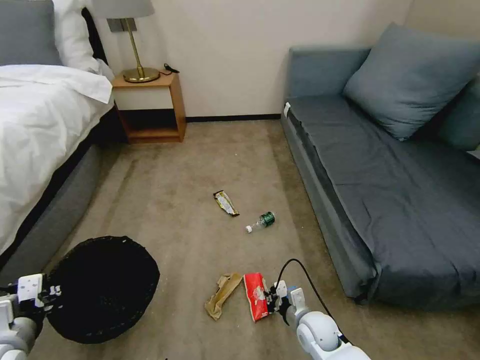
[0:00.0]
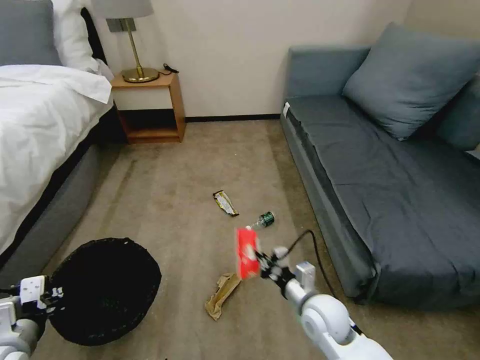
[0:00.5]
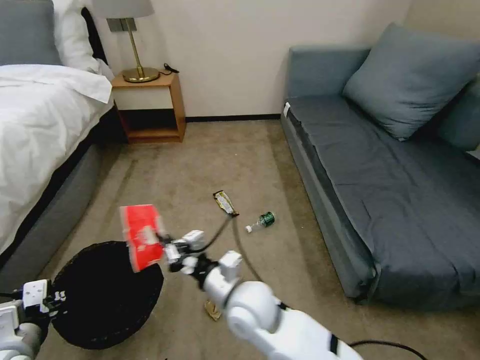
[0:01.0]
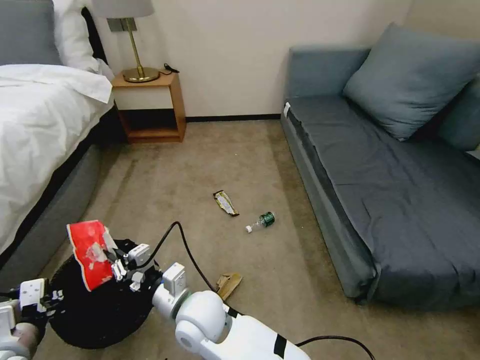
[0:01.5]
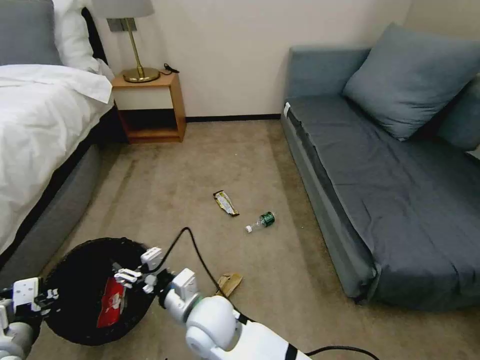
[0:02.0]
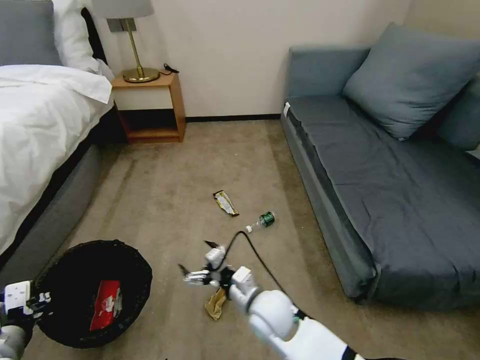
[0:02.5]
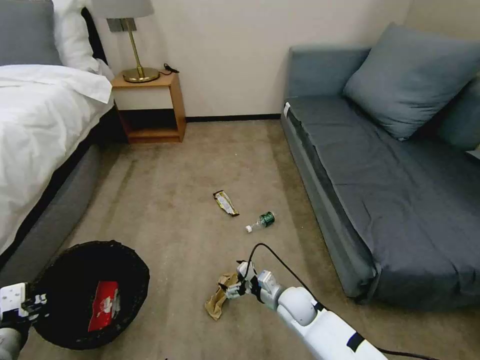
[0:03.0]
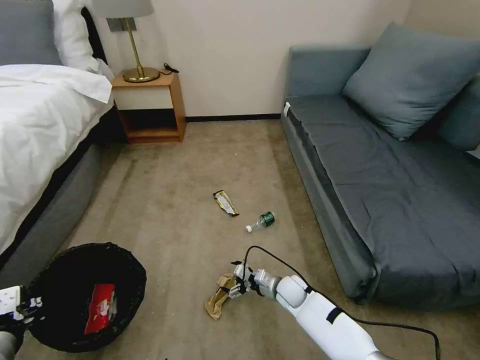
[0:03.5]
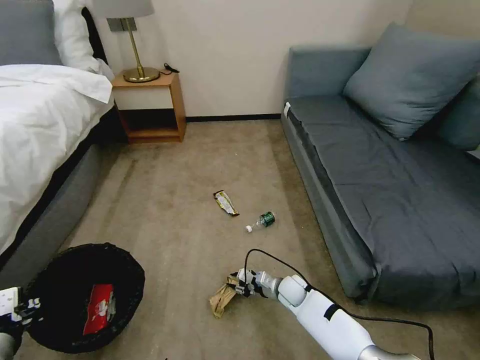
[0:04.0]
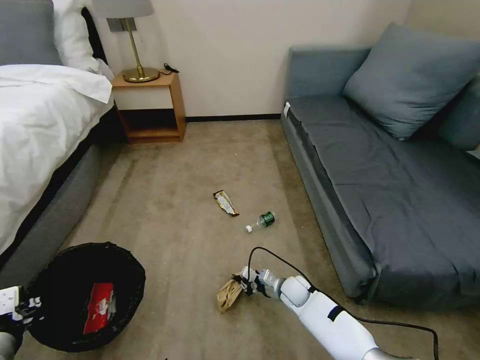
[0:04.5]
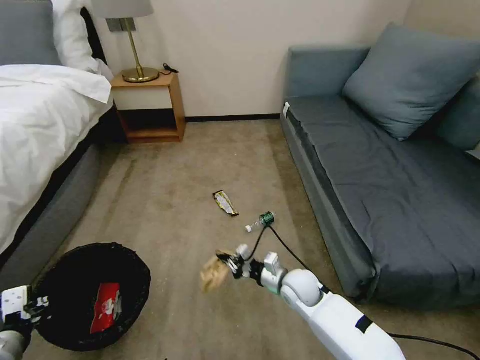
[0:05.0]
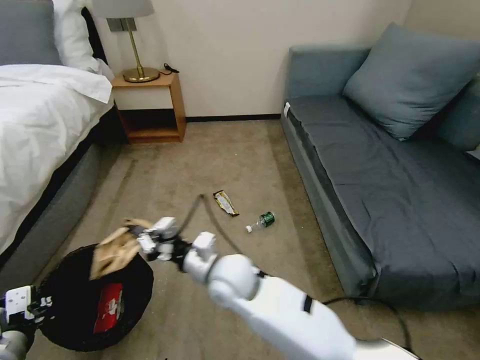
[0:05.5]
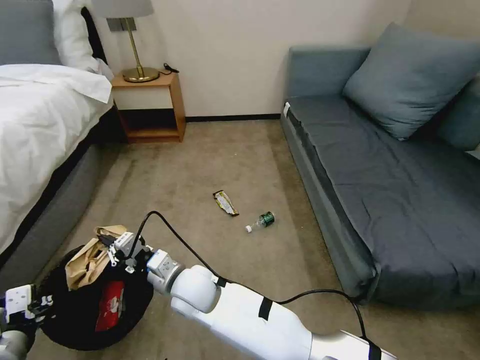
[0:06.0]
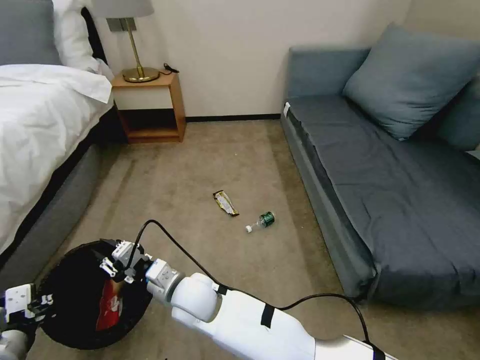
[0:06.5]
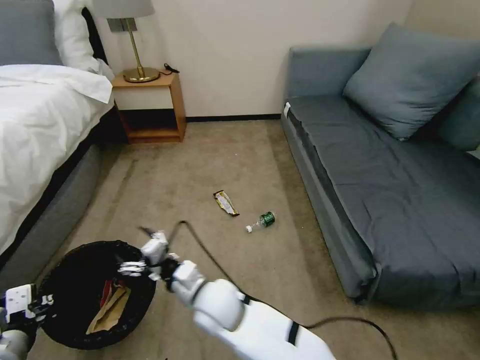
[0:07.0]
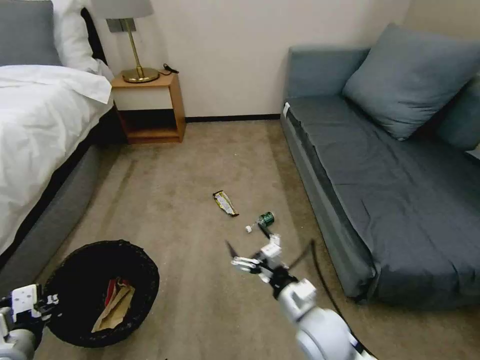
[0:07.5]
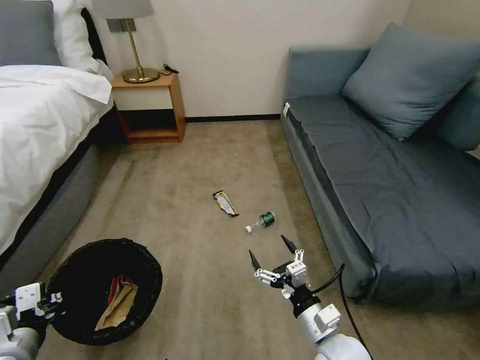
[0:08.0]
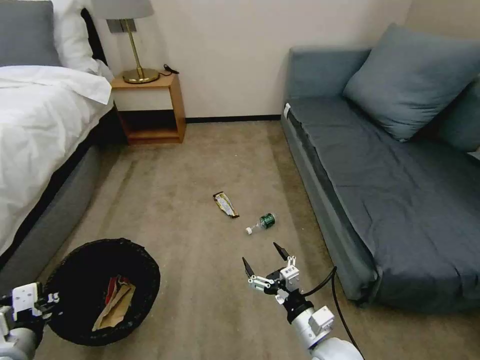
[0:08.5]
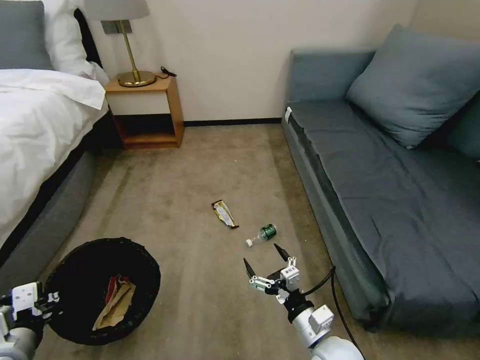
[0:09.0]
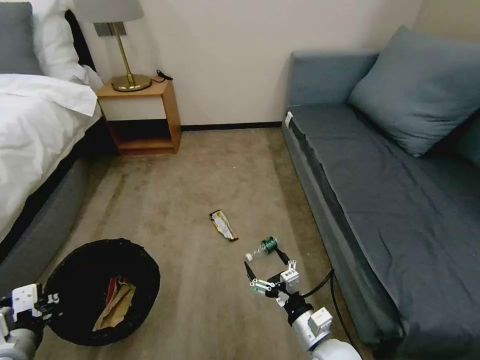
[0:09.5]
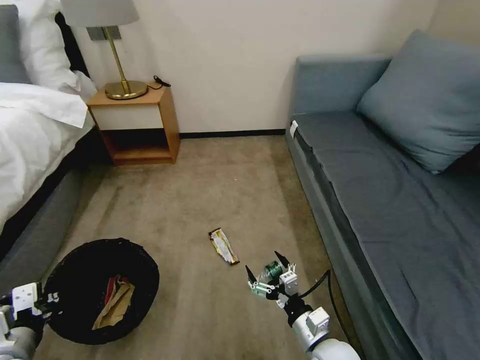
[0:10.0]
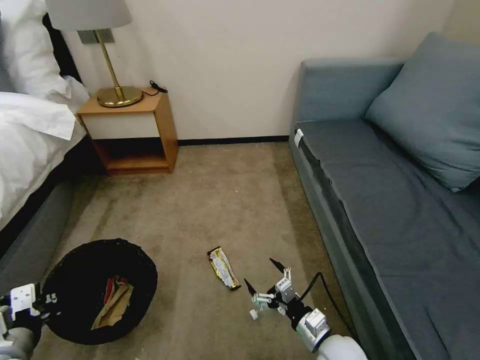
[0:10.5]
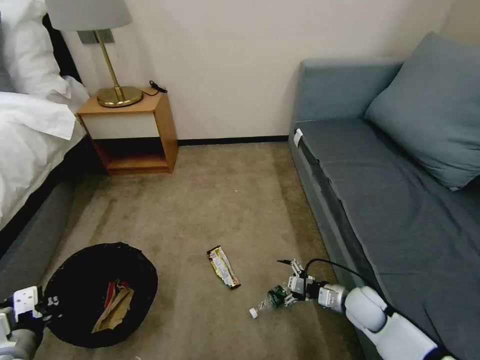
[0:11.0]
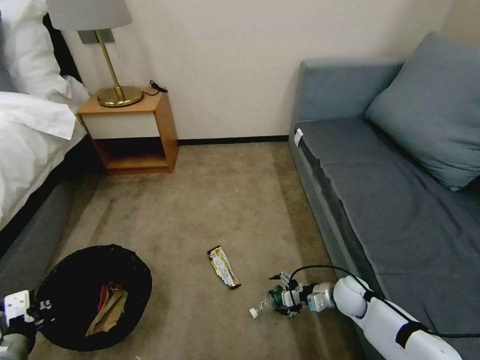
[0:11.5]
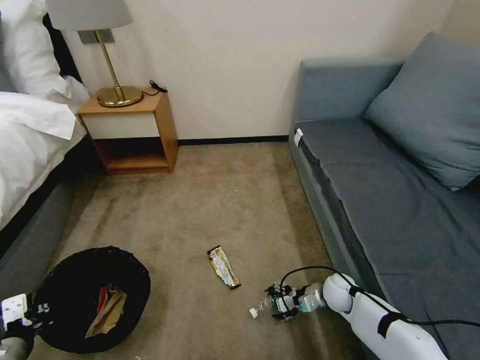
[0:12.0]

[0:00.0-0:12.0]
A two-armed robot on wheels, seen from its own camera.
Task of the whole recording: Pick up the trash bin, then pick up the garbage on the floor and place it into the trash bin.
0:00.0 to 0:02.0: The right gripper is displaced to the left and upward by some 30 cm, and opens its fingers.
0:02.0 to 0:04.0: The right gripper shifts approximately 35 cm to the right, downward and forward, and opens, then closes once more.
0:04.0 to 0:06.0: The right gripper shifts about 35 cm to the left and upward, and closes its fingers.
0:06.0 to 0:08.0: The right gripper moves to the right, approximately 30 cm, and opens.
0:10.0 to 0:12.0: The right gripper moves forward, to the right and downward, roughly 20 cm.

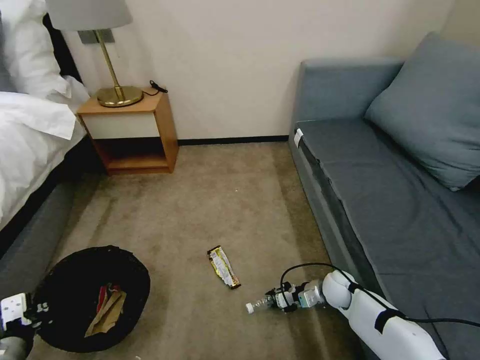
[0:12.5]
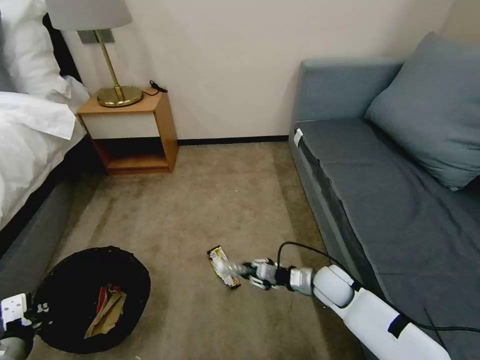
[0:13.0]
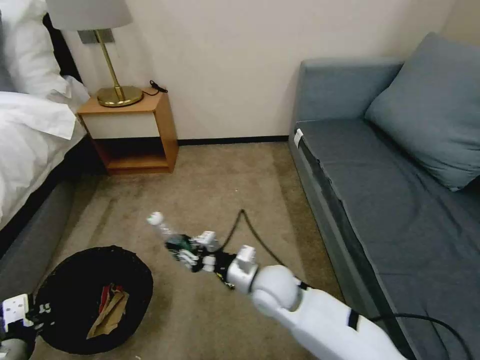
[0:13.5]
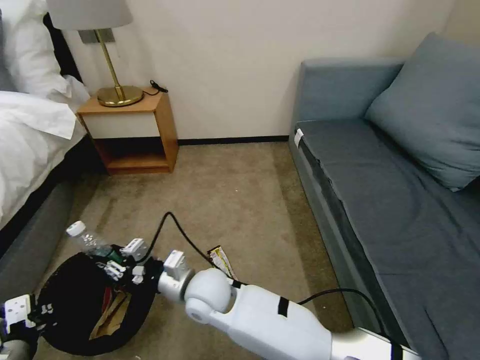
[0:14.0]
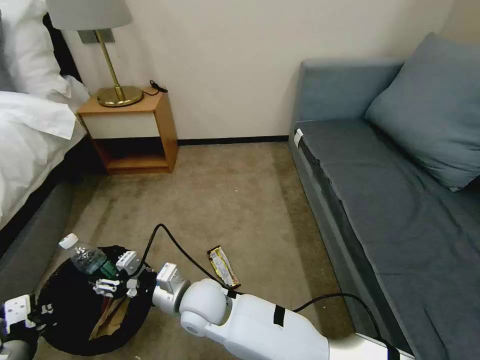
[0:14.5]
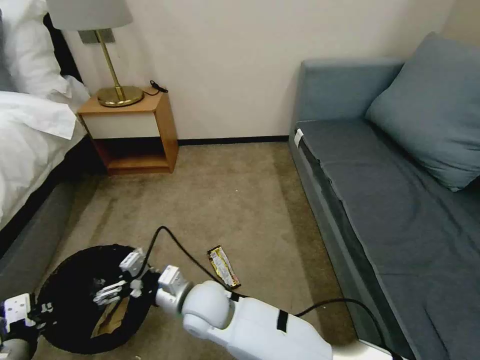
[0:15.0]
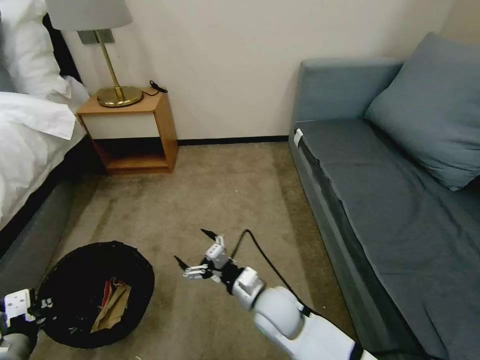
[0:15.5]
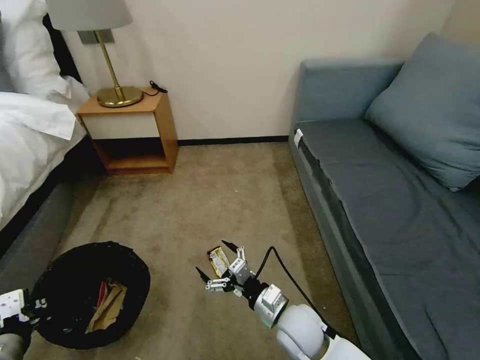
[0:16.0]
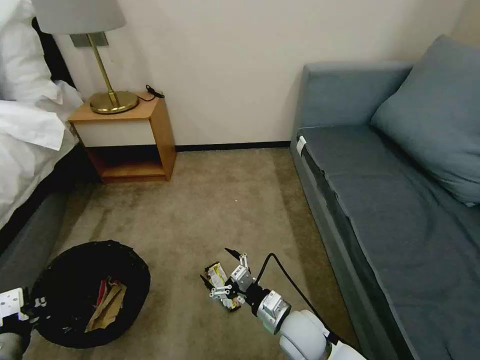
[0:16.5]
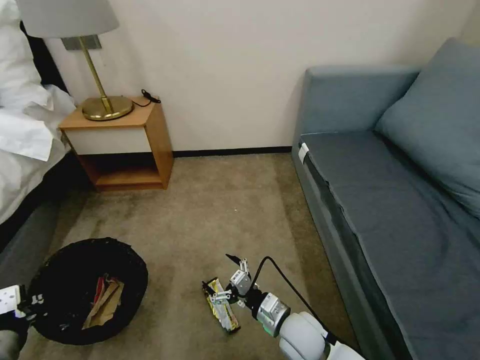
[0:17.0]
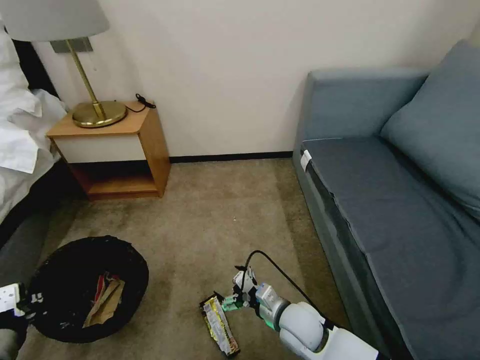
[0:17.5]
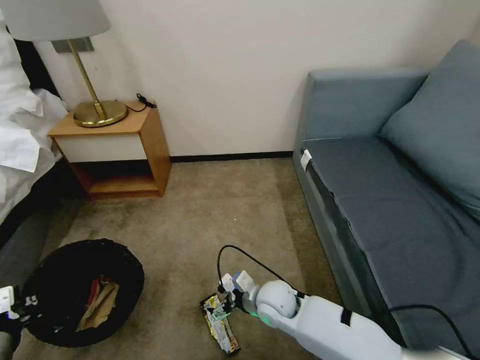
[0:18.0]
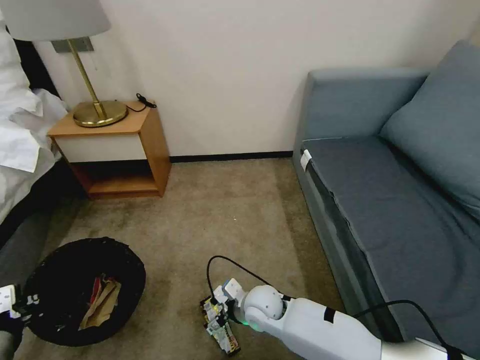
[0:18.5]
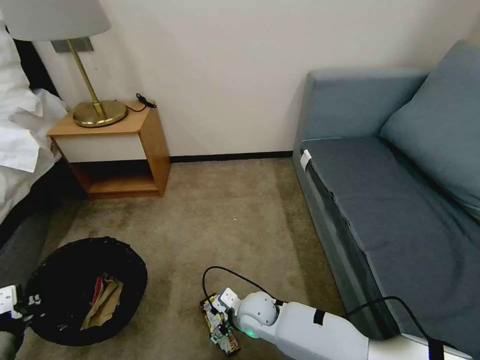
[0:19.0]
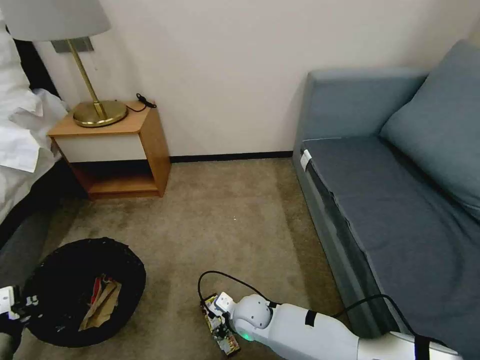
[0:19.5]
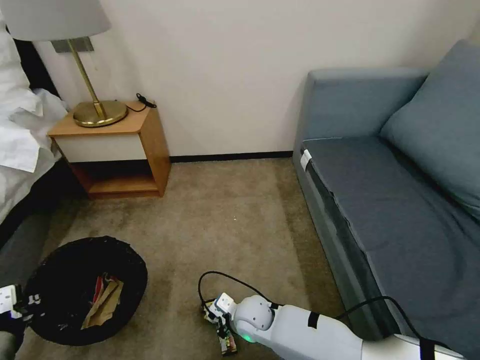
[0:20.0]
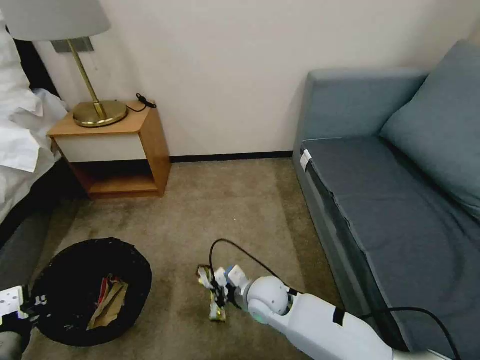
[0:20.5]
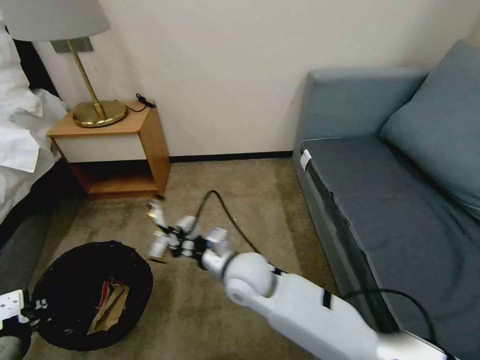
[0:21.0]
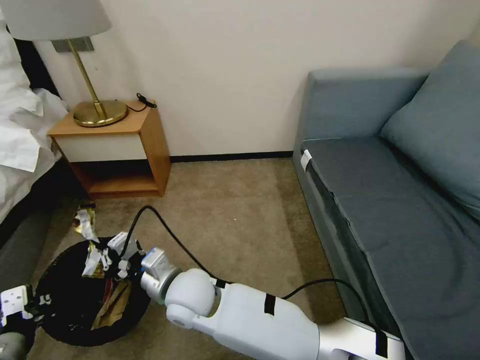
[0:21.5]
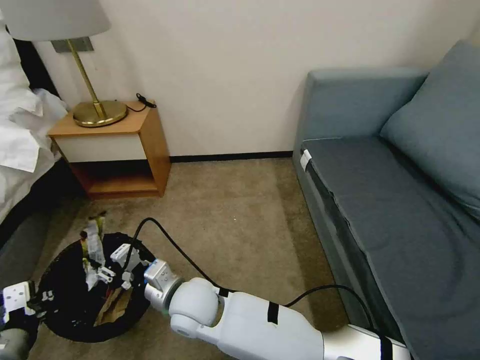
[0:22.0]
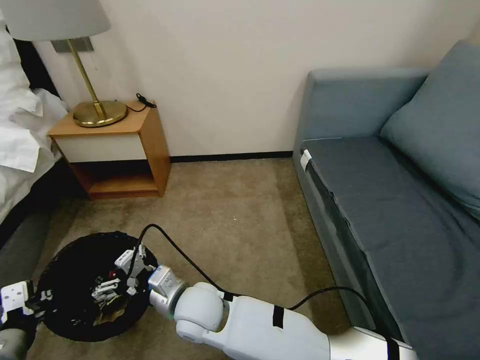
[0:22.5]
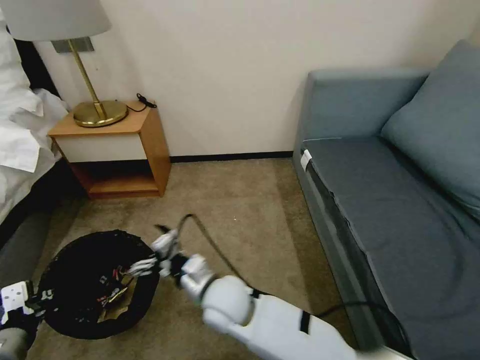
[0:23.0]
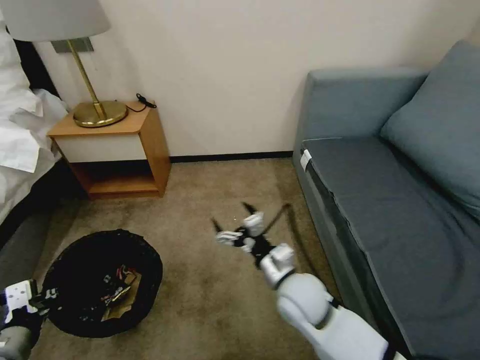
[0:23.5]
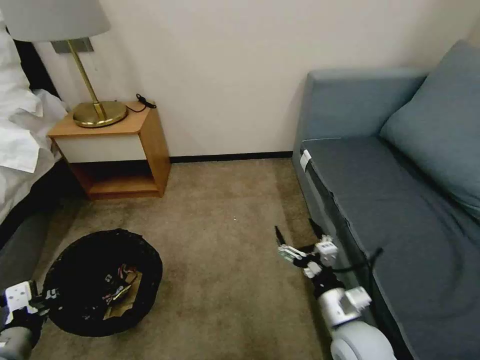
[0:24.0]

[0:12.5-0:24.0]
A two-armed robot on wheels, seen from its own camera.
Task of the whole recording: Pick up the trash bin, then pick up the garbage on the floor and place it into the trash bin.
0:12.5 to 0:14.5: The right gripper goes approximately 40 cm to the left and upward.
0:14.5 to 0:16.5: The right gripper goes roughly 20 cm to the right, and opens.
0:16.5 to 0:18.5: The right gripper shifts about 10 cm to the left and forward.
0:18.5 to 0:20.0: The right gripper moves some 5 cm, and closes its fingers.
0:20.0 to 0:22.0: The right gripper heads upward and to the left, covering about 20 cm, and opens.
0:22.0 to 0:24.0: The right gripper moves to the right, about 30 cm, and opens.

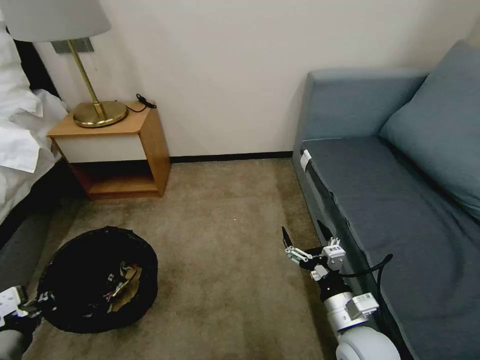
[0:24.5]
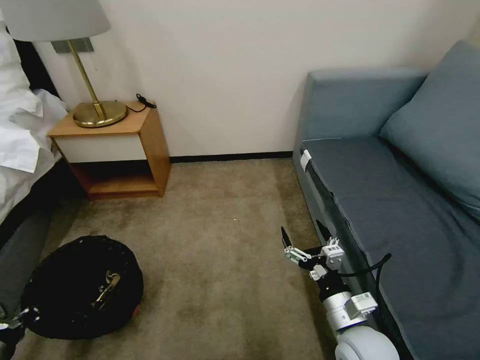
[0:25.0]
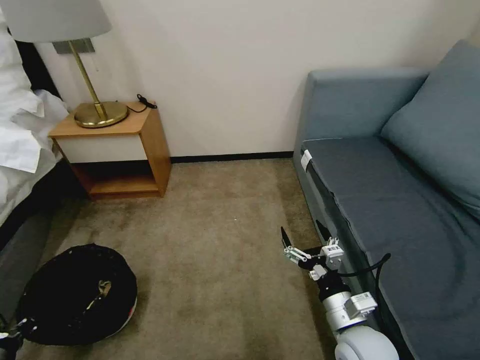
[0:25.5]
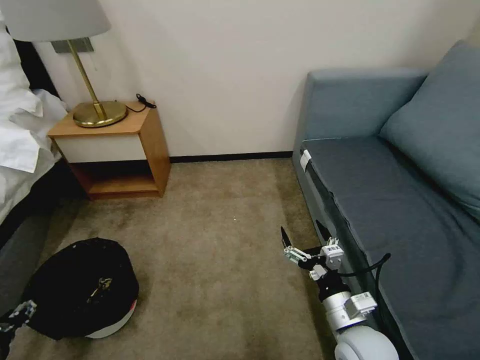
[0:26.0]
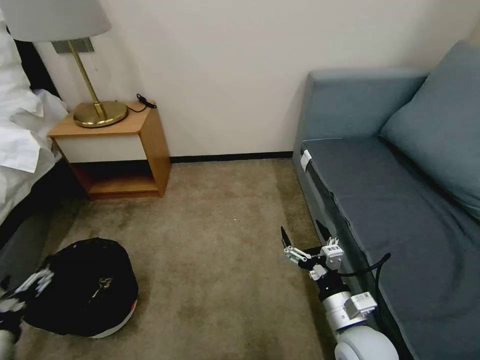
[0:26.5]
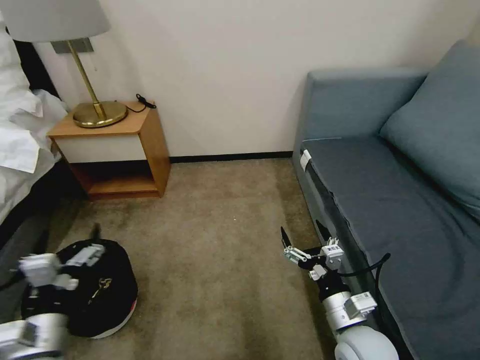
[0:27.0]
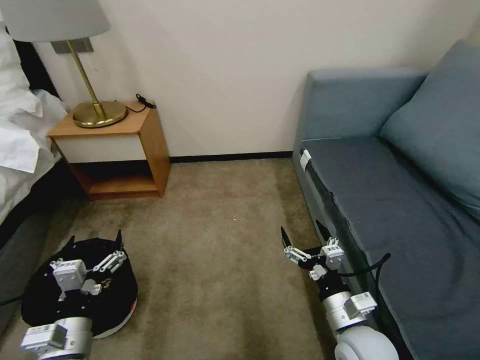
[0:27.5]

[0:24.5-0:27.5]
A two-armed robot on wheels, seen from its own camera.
Task of the whole recording: Pick up the trash bin, then pick up the garbage on the floor and place it into the trash bin.
0:24.5 to 0:26.0: The left gripper travels to the left and downward by about 10 cm, and opens up.
0:26.0 to 0:27.5: The left gripper moves to the right, some 20 cm, and opens its fingers.
